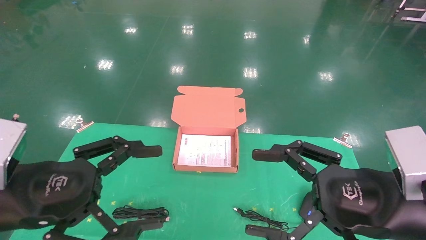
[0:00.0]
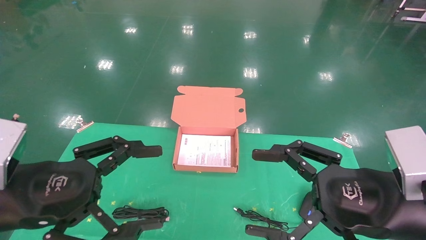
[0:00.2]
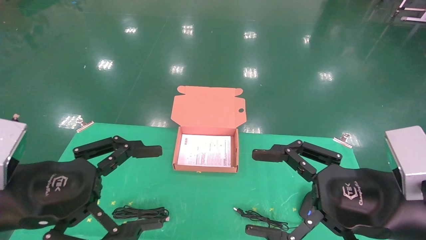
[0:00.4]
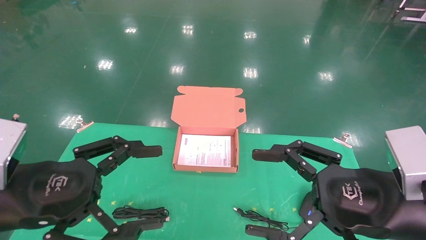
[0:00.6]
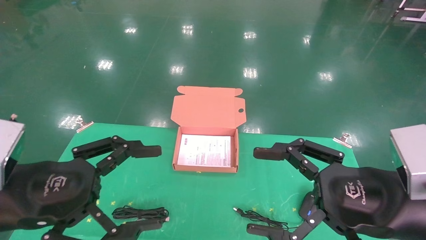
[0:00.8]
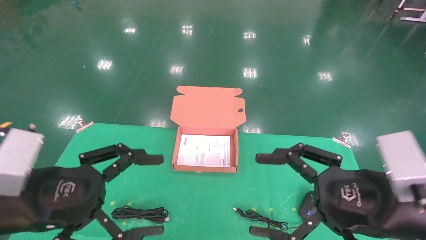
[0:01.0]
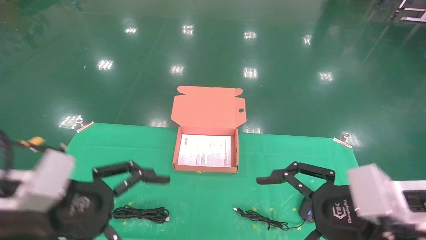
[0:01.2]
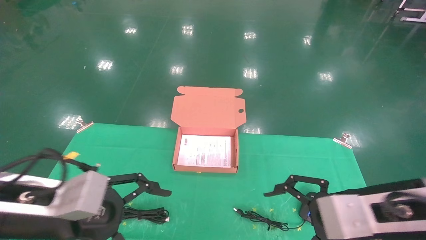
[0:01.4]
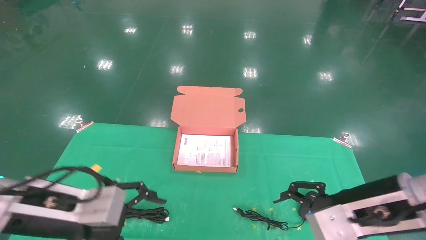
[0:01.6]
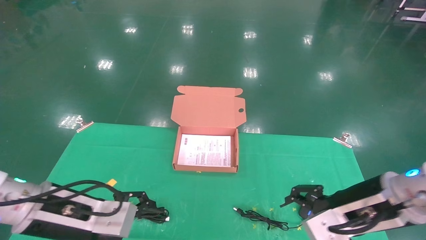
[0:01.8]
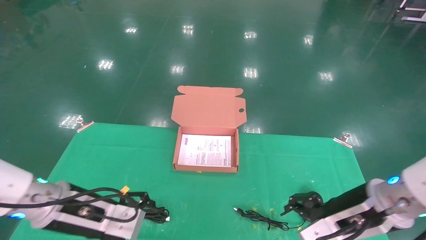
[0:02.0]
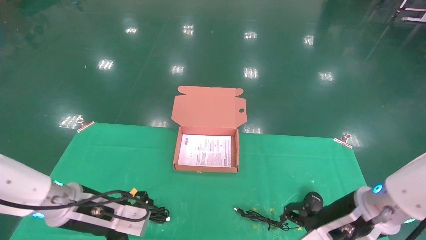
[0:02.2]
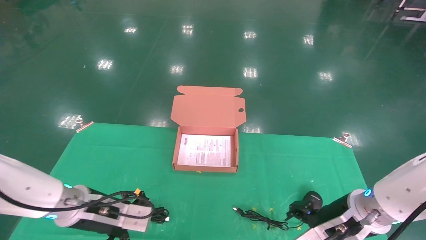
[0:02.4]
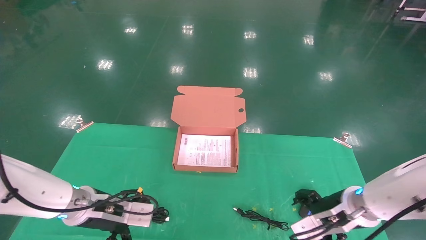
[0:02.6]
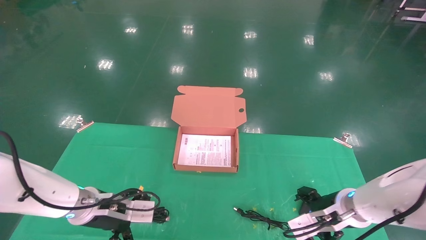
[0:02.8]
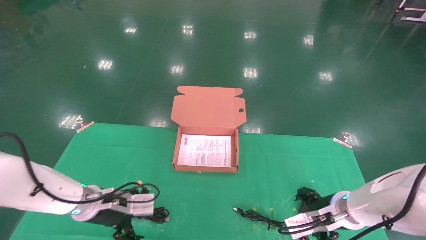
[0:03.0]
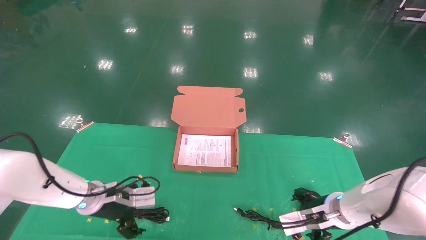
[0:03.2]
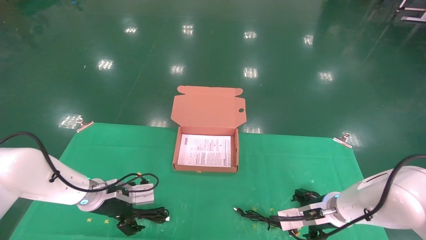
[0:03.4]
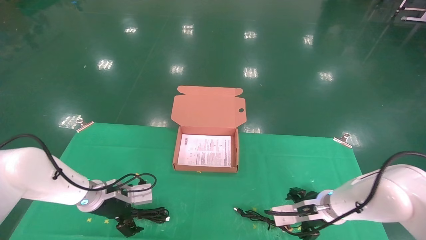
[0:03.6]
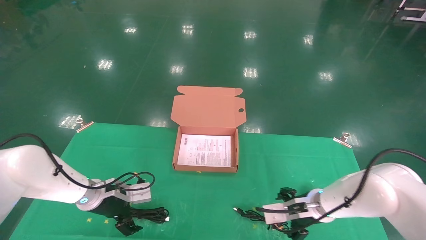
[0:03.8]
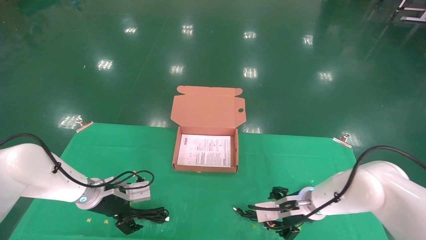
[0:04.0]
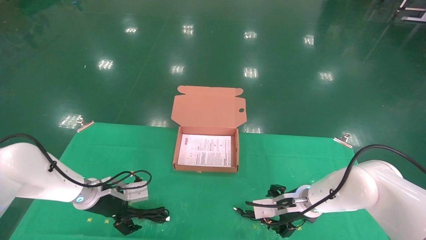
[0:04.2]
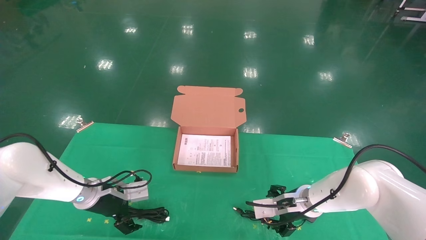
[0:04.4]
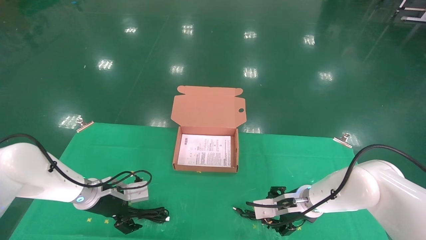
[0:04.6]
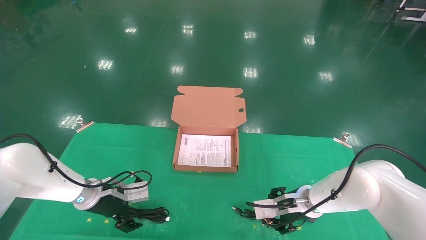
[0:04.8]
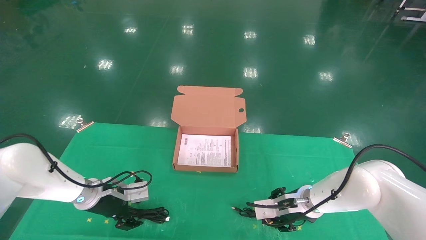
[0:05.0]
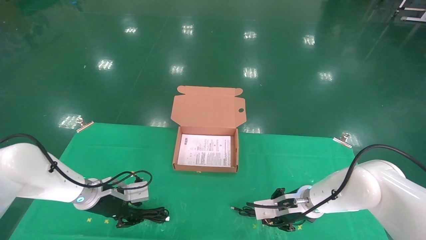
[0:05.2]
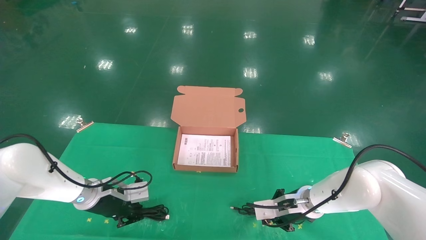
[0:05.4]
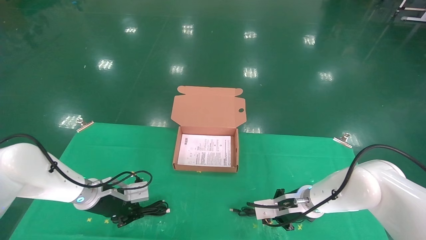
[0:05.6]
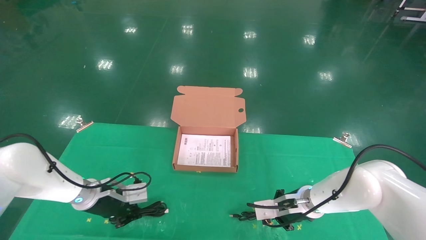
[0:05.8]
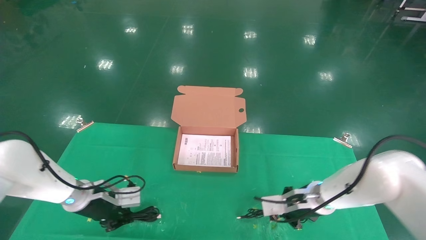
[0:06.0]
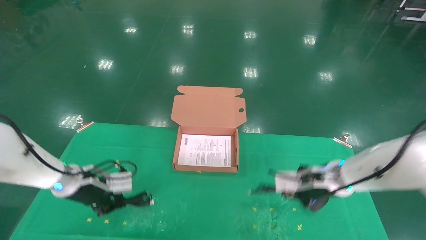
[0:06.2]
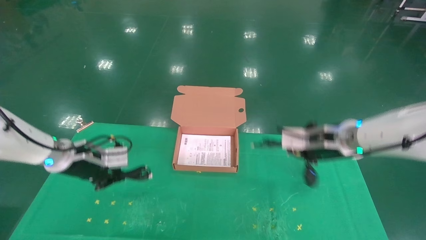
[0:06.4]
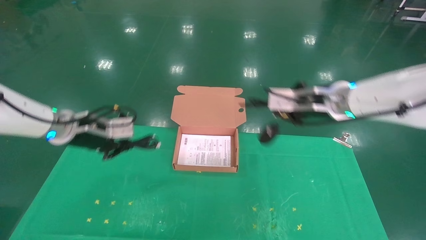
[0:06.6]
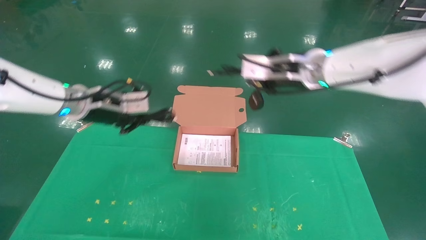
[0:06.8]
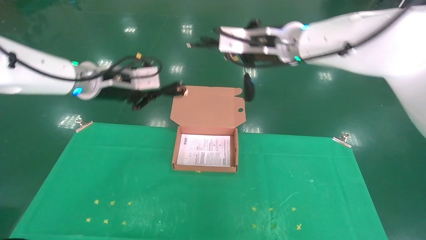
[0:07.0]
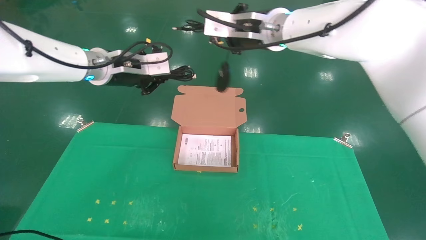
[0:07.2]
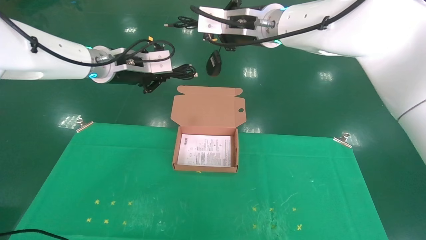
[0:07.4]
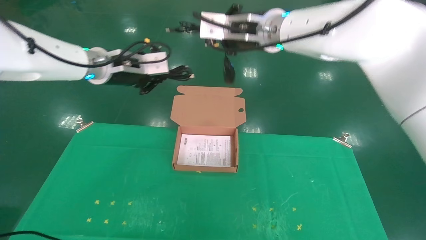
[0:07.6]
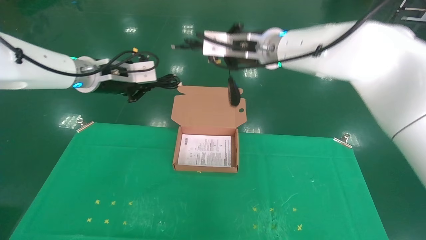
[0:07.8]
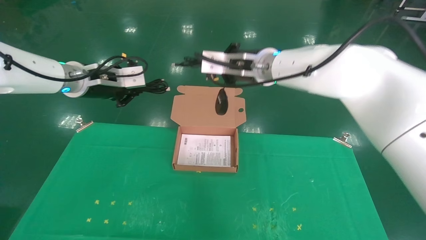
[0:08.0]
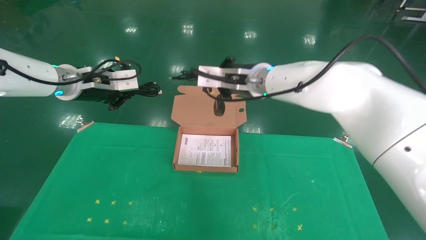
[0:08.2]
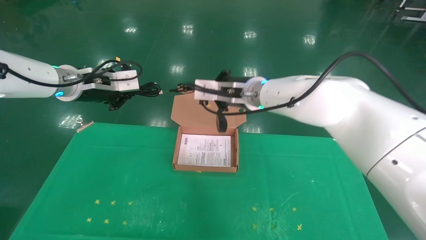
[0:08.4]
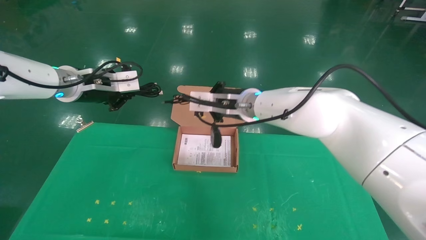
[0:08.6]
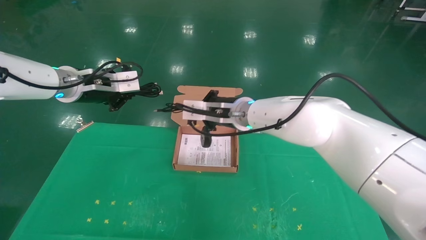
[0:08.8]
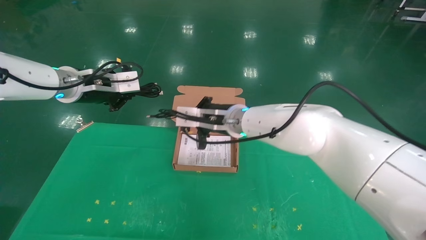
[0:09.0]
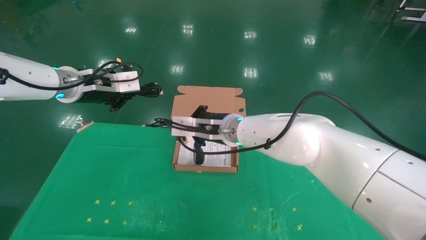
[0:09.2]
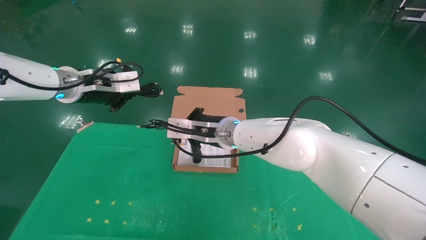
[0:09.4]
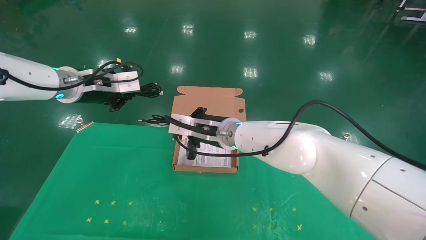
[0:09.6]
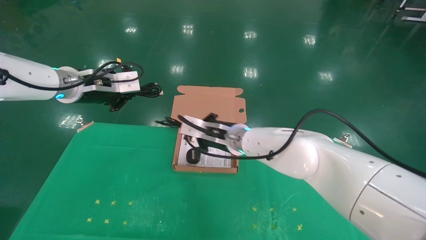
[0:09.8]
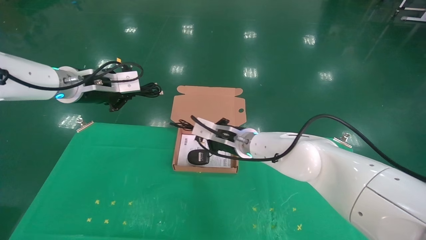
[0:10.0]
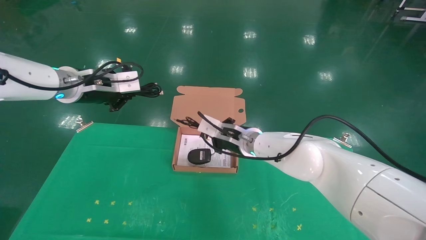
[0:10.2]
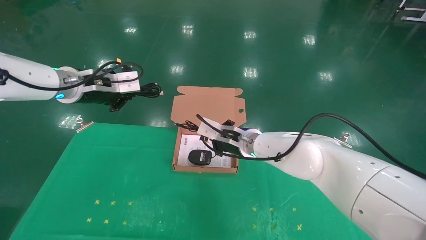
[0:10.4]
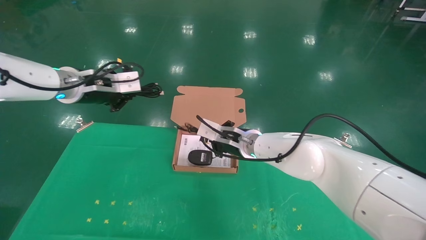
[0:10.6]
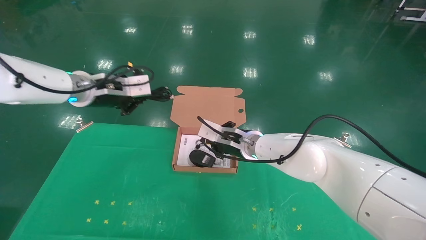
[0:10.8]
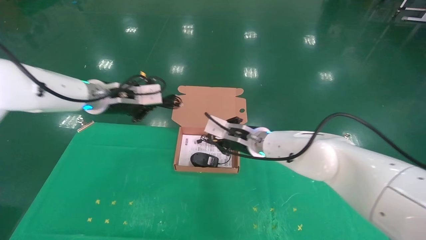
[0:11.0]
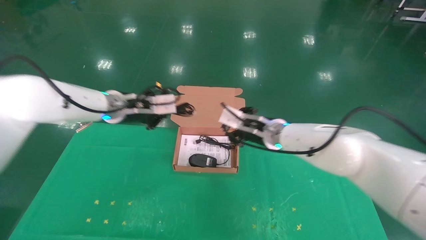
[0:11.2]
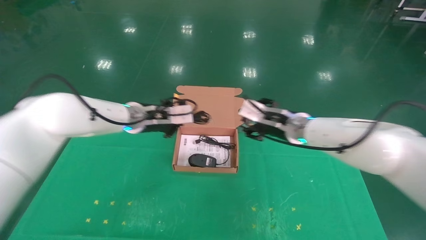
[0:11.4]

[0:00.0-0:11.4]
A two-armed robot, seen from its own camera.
Task of the whole recording: grasp data cable left put into box grasp mouse right put into box.
Step, 0:01.2 to 0:06.6: Grab and pick up both the mouse and power cord from the accessory packaging area at the same time.
0:01.4 to 0:02.8: The two grippers go approximately 20 cm forward and downward.
0:02.8 to 0:04.2: The right gripper heads forward and to the left, covering some 10 cm. The left gripper moves forward, some 5 cm.
0:04.2 to 0:05.6: The left gripper closes. The right gripper closes up.
0:05.6 to 0:07.2: Both grippers move upward, about 30 cm.
0:07.2 to 0:08.6: The left gripper travels to the left by some 5 cm. The right gripper goes some 15 cm downward.
0:08.6 to 0:10.0: The right gripper shifts some 10 cm downward.
0:10.0 to 0:11.4: The left gripper moves to the right and downward, roughly 15 cm, while the right gripper shifts about 15 cm to the right, and opens.

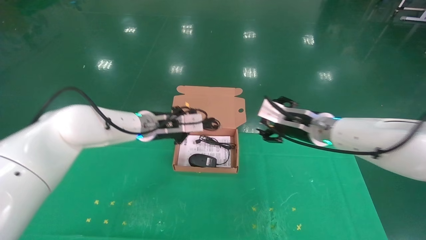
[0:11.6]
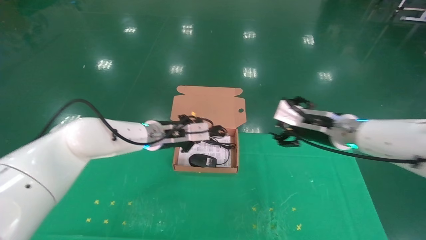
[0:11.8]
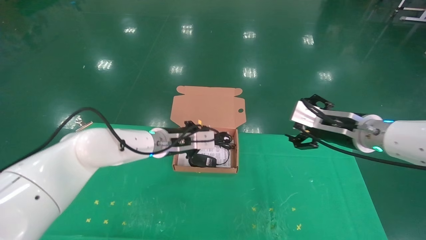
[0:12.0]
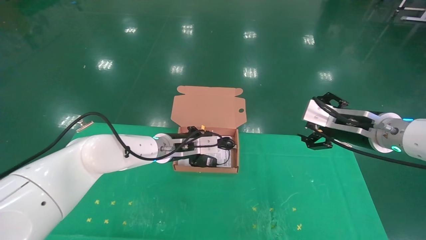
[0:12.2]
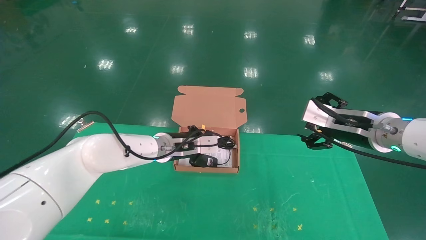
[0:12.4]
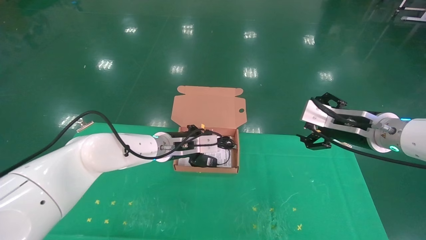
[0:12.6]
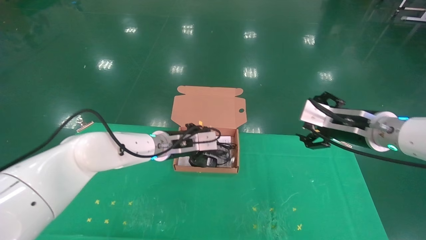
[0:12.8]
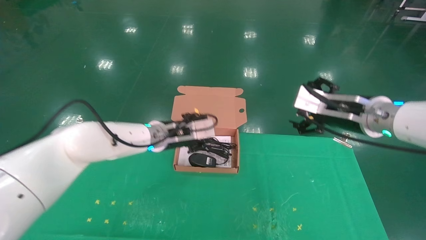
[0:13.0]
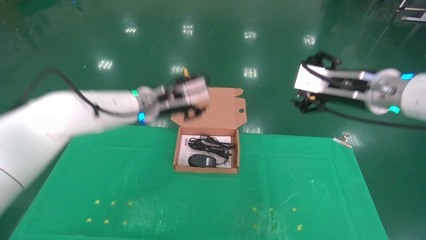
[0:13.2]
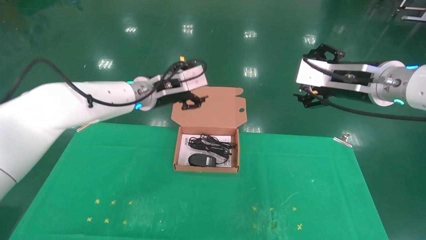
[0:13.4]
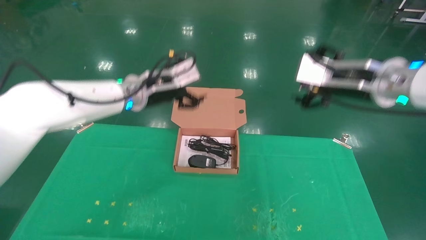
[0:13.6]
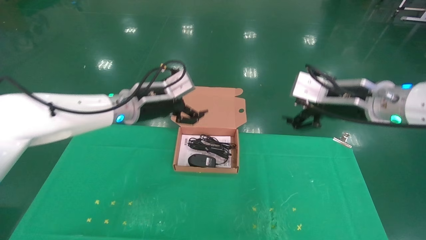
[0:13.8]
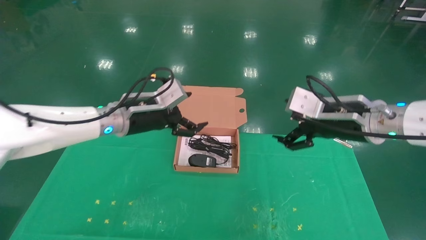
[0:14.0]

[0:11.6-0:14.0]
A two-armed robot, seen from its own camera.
Task of the whole recording: grasp data cable left put into box grasp mouse right put into box.
0:11.6 to 0:12.8: The right gripper heads backward and to the right, covering some 10 cm.
0:12.8 to 0:14.0: The left gripper moves upward and to the left, some 10 cm, and opens up.
